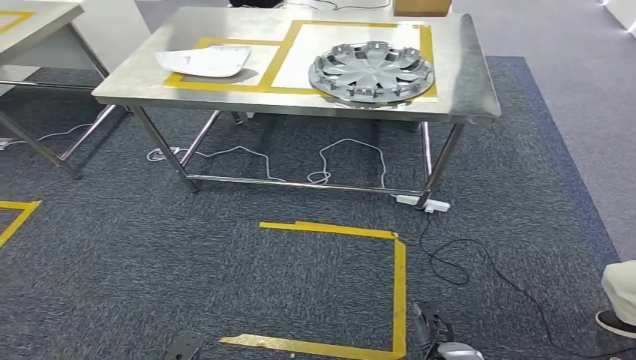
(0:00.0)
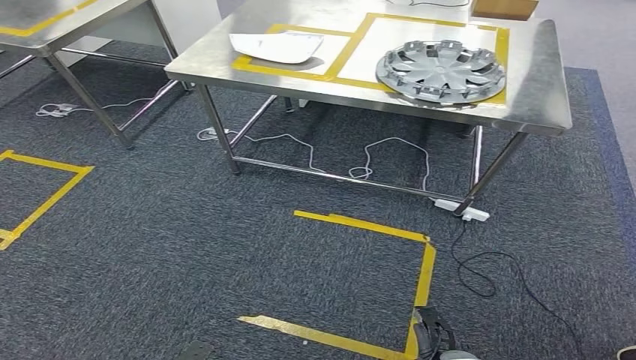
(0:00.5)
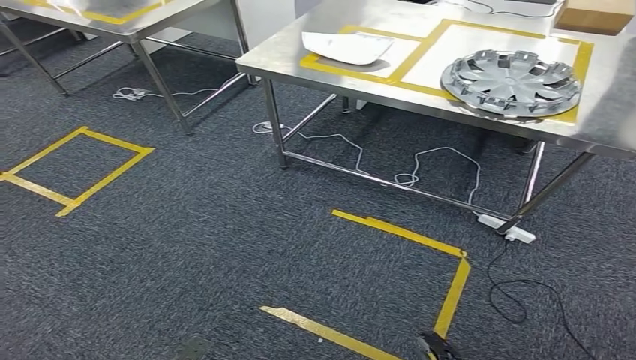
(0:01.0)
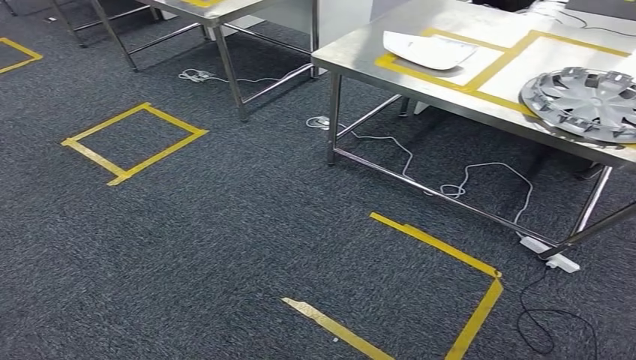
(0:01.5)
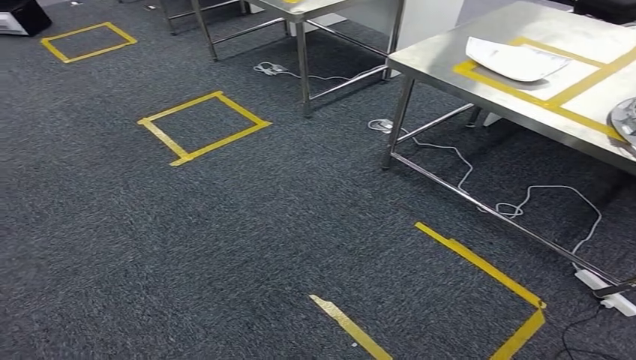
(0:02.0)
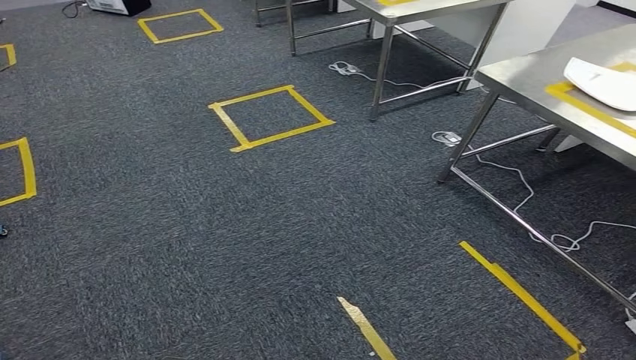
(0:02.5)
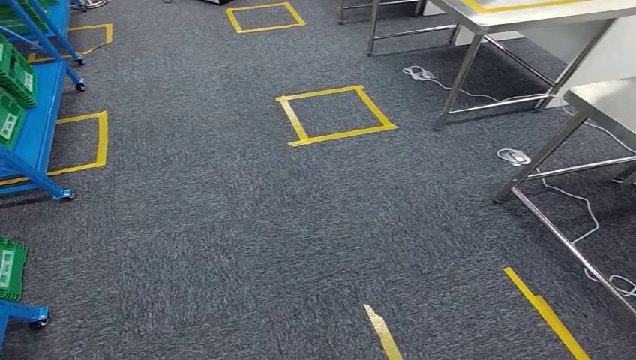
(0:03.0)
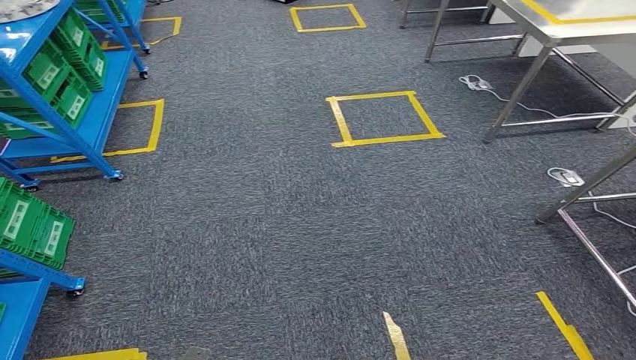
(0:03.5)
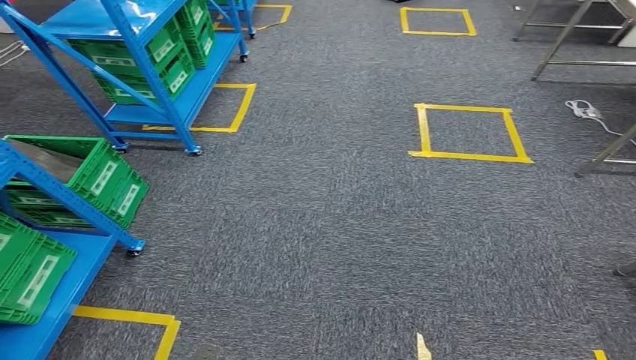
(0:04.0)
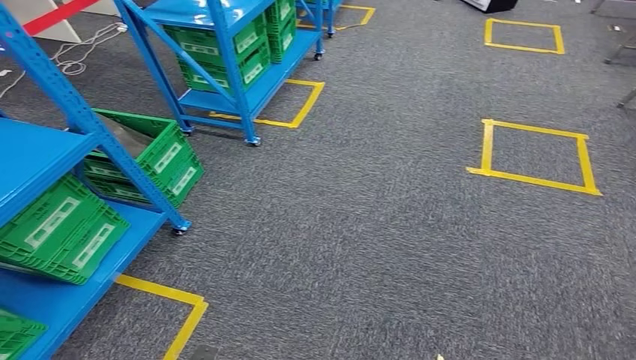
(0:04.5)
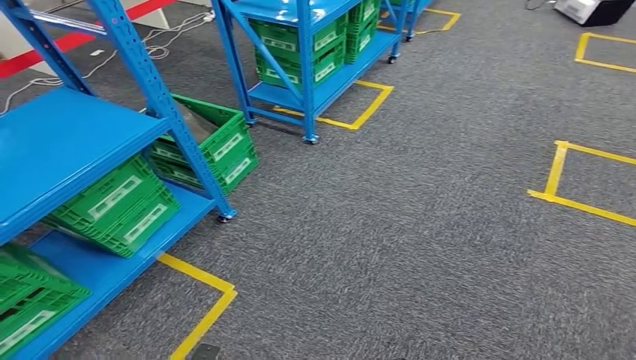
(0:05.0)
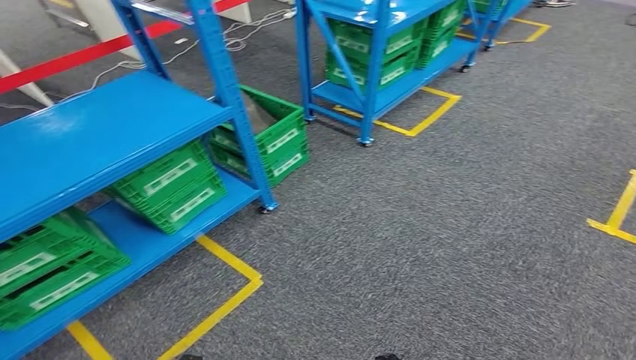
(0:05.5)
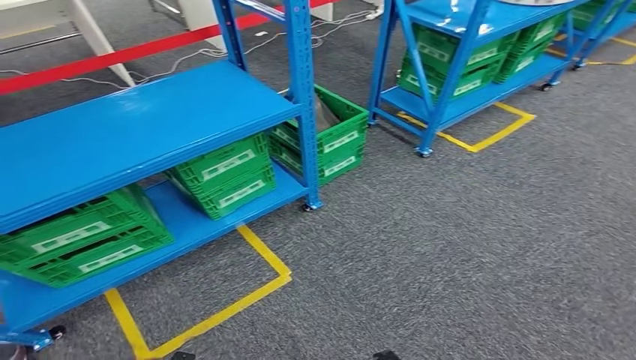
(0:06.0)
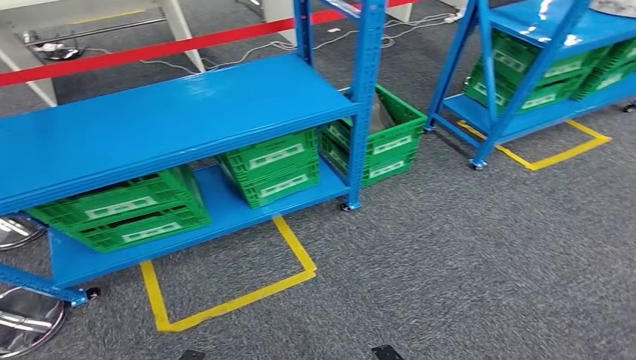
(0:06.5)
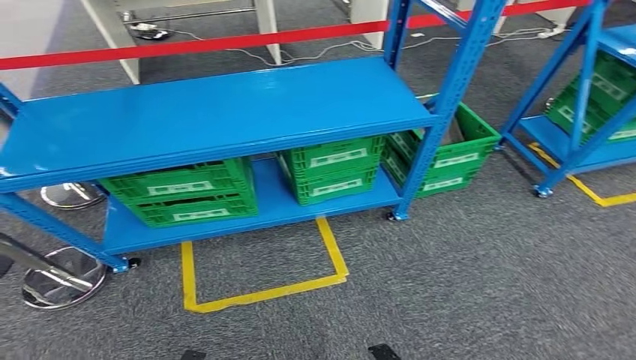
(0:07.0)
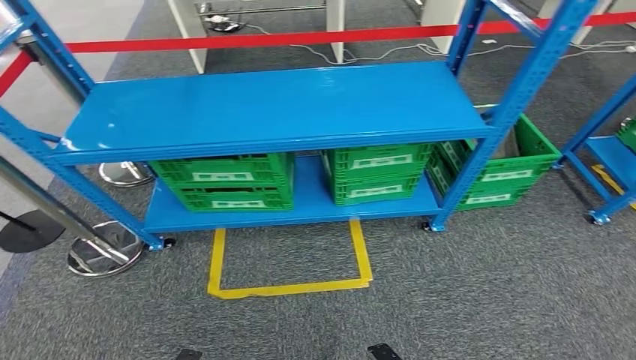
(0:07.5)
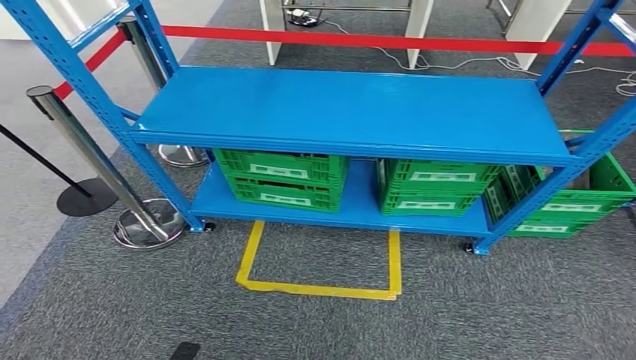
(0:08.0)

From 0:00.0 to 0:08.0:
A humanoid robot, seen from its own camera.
Step, from 0:00.0 to 0:08.0: Return to the initial position at the workbench.
